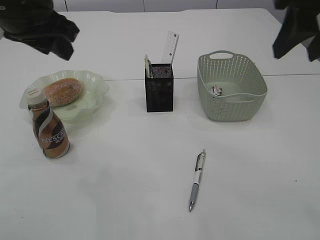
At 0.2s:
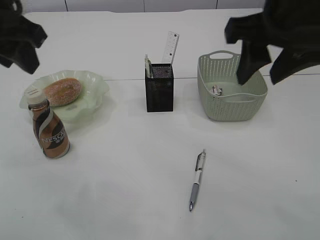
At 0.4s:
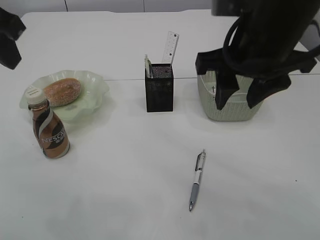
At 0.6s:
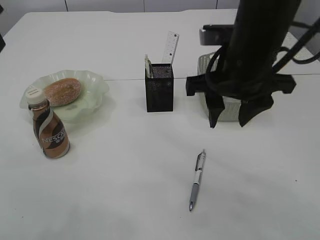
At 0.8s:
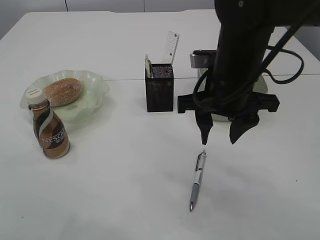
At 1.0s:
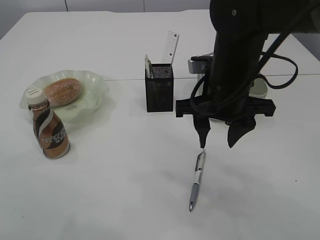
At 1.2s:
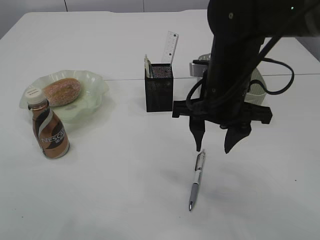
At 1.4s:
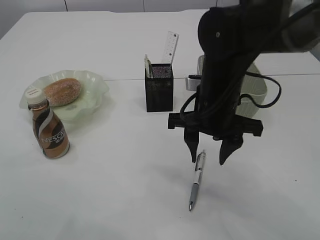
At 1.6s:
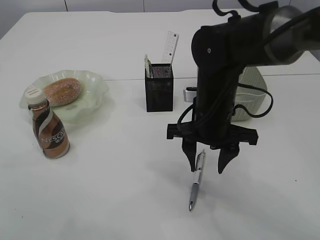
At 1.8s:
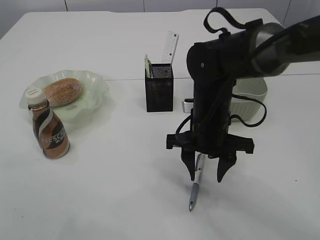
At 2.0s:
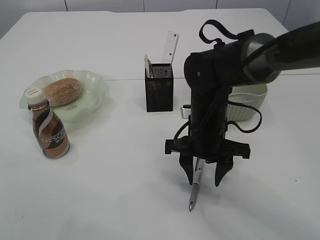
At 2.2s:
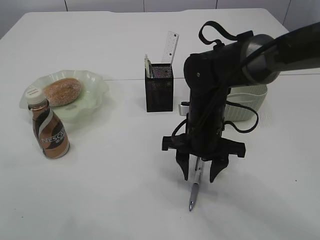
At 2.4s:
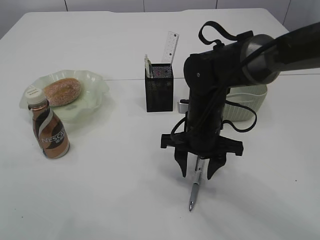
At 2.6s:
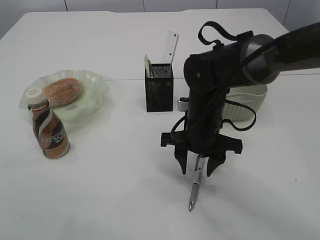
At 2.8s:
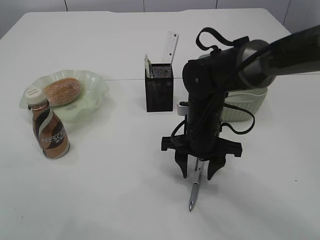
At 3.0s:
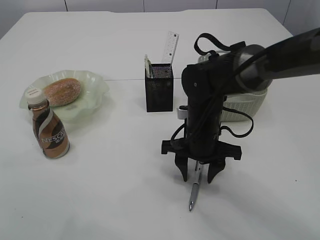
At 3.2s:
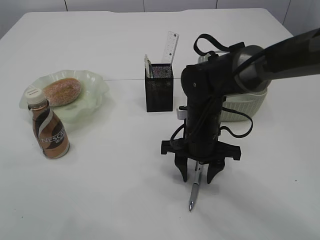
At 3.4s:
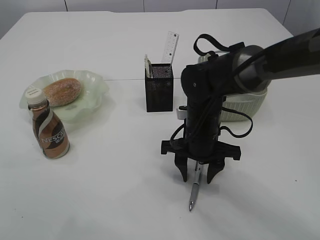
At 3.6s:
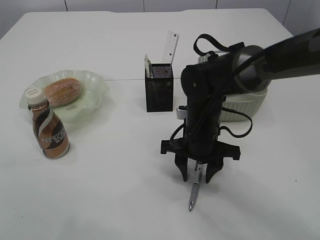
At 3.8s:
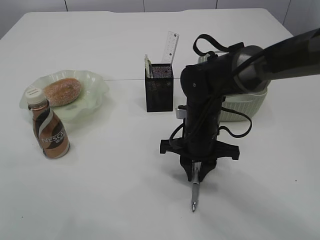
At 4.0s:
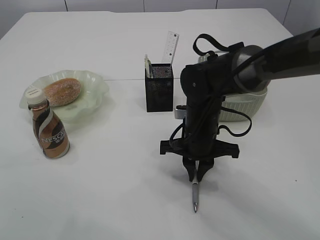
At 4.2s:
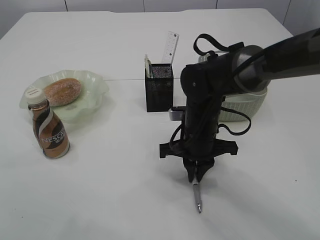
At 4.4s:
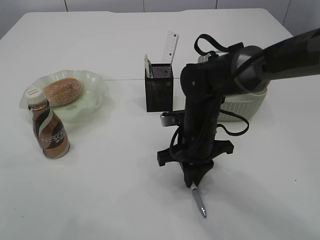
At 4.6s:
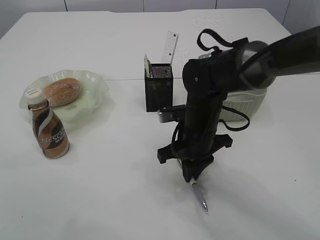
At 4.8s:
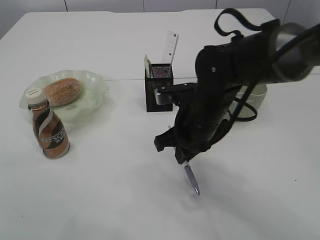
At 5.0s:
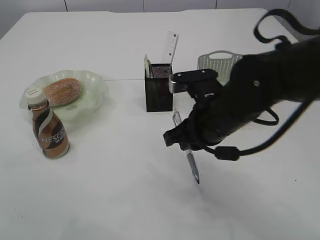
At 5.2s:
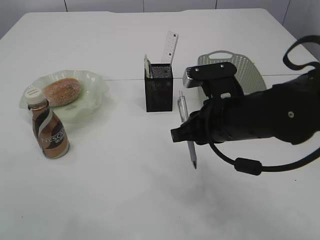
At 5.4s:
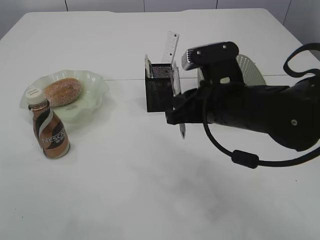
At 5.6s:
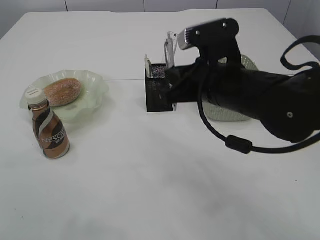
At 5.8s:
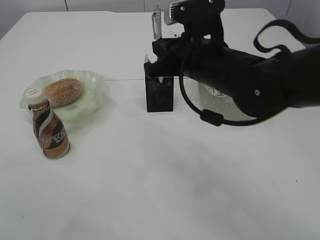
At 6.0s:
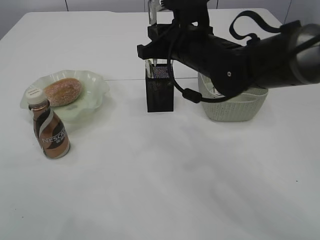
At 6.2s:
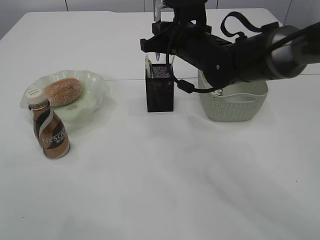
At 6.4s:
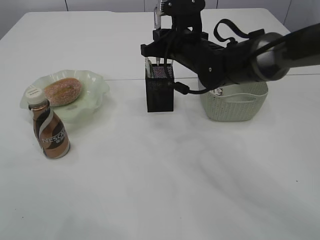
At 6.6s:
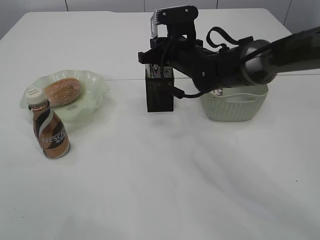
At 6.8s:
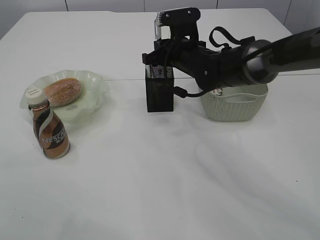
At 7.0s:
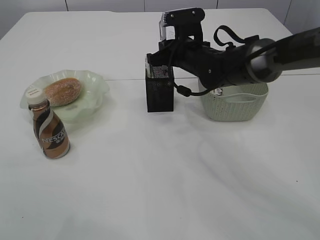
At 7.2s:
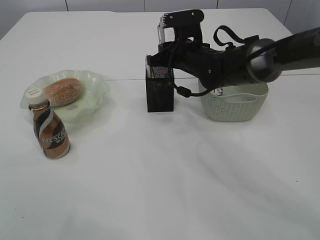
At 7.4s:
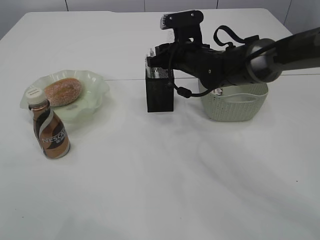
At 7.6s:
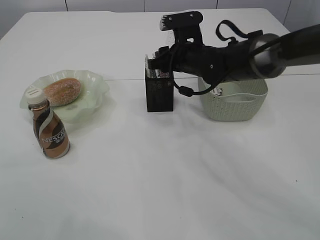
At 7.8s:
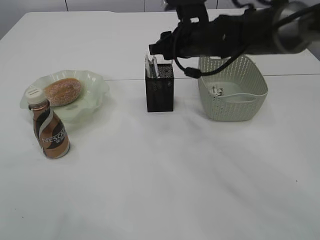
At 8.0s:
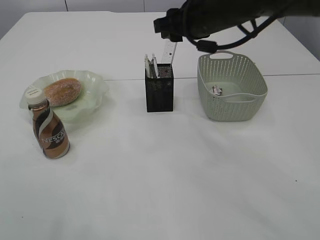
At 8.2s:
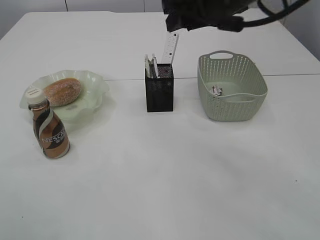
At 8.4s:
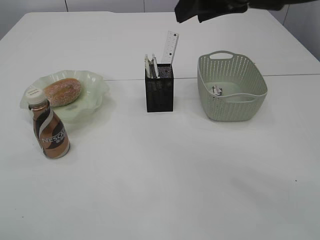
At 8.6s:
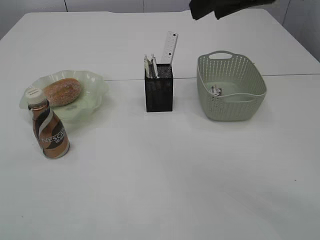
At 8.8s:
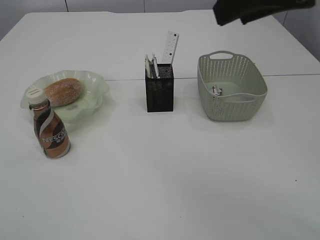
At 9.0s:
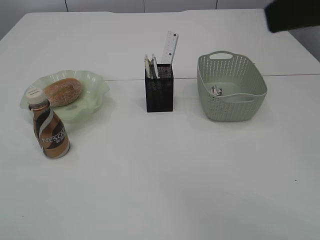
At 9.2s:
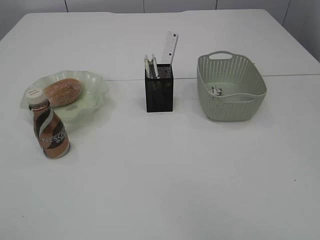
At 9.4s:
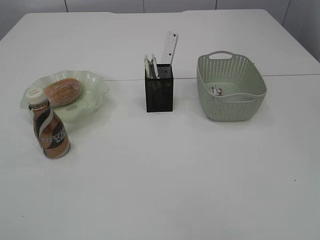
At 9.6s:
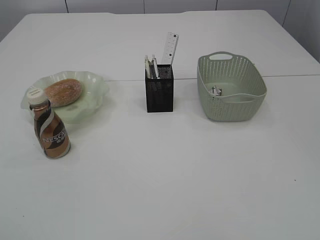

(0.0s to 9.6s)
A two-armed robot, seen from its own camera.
Step, 0.0s - 4.6s: Pick up the pen with right arm.
Step, 4.8s - 7.8s: Place the pen into the pen holder.
0.0s - 1.6s: The right gripper goes approximately 25 cm downward and to the left. Meanwhile the left gripper travels backward, upward and to the left by some 15 cm.
1.6s - 3.2s: The right gripper is displaced downward by roughly 5 cm.
3.2s - 4.8s: The right gripper closes.
4.8s - 6.4s: The right gripper shifts some 15 cm forward and upward.
6.4s - 8.0s: The right gripper travels upward by about 5 cm, and opens its fingers.
8.0s - 9.6s: The left gripper moves backward, about 25 cm, while the right gripper heads backward, covering about 40 cm.

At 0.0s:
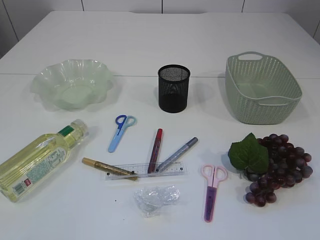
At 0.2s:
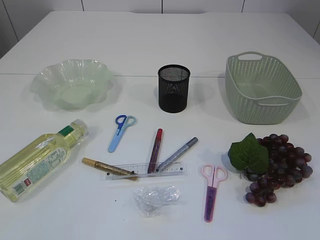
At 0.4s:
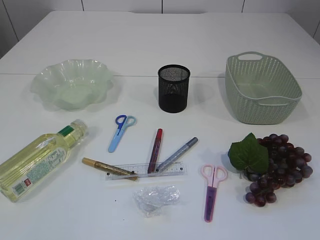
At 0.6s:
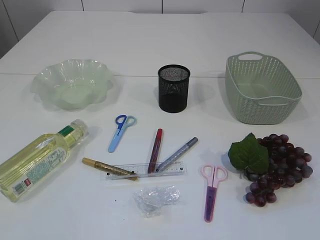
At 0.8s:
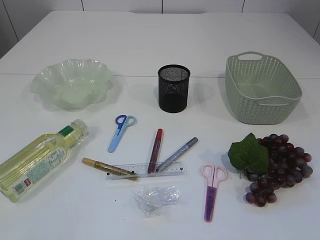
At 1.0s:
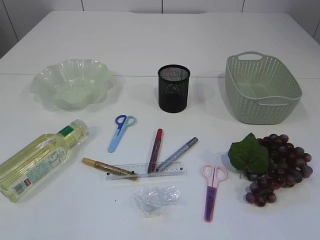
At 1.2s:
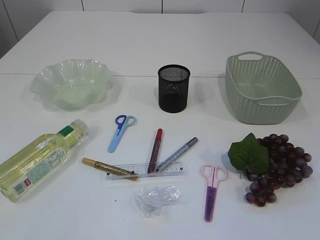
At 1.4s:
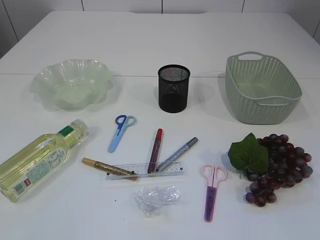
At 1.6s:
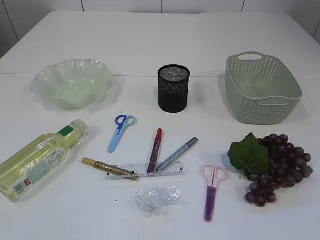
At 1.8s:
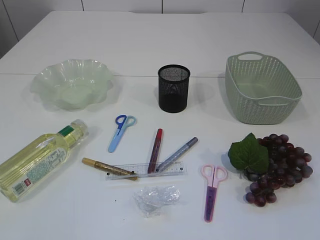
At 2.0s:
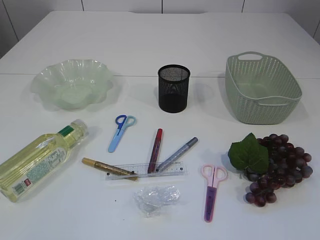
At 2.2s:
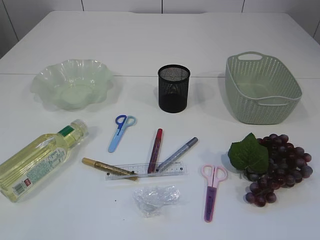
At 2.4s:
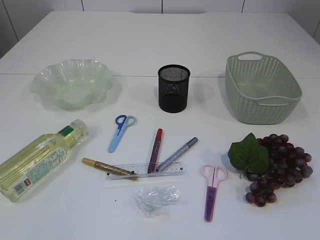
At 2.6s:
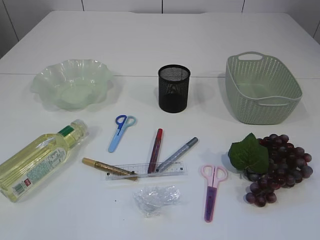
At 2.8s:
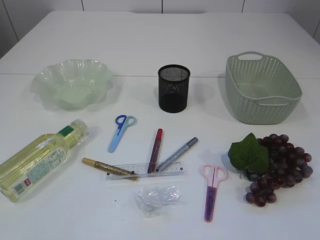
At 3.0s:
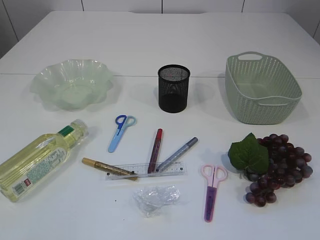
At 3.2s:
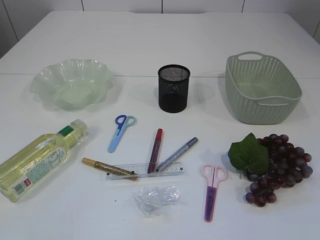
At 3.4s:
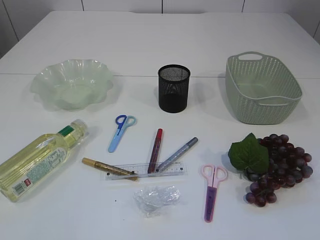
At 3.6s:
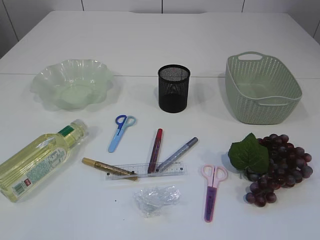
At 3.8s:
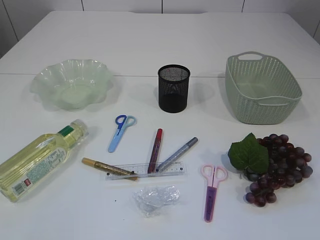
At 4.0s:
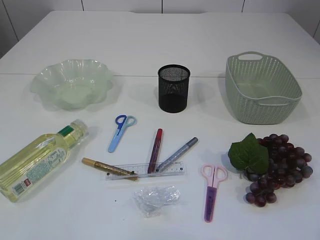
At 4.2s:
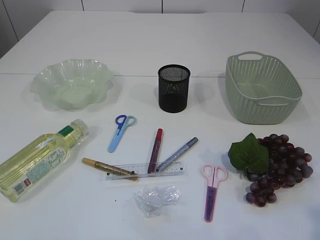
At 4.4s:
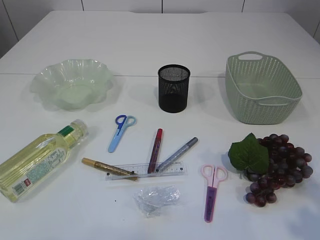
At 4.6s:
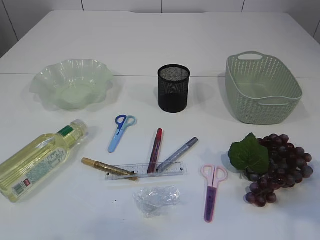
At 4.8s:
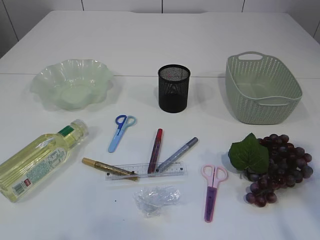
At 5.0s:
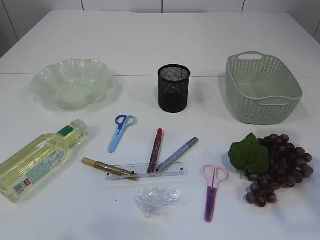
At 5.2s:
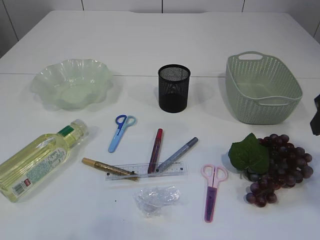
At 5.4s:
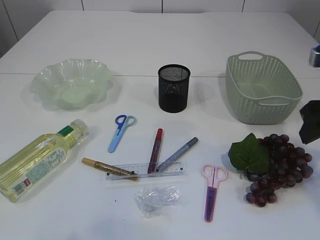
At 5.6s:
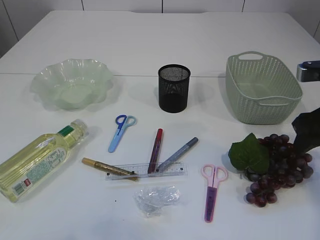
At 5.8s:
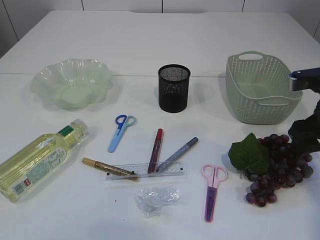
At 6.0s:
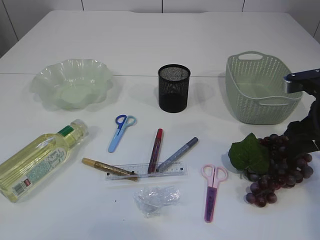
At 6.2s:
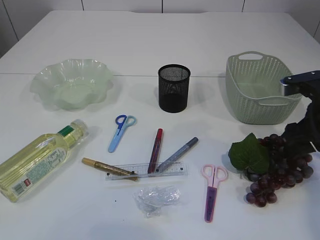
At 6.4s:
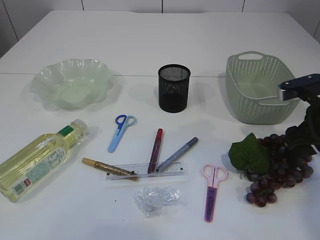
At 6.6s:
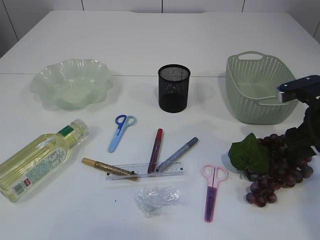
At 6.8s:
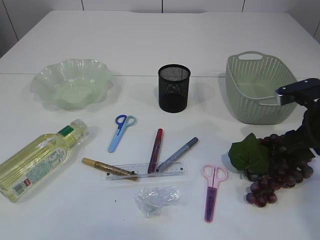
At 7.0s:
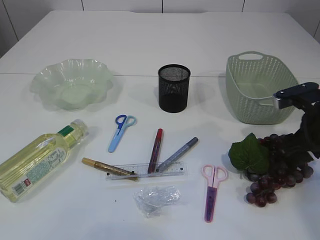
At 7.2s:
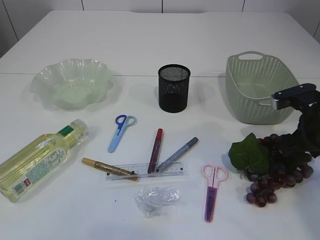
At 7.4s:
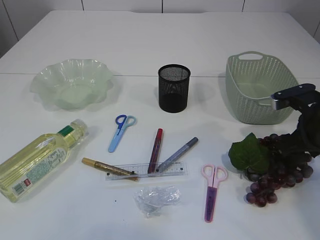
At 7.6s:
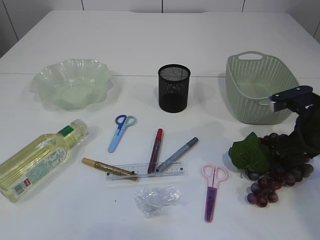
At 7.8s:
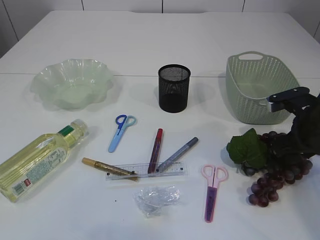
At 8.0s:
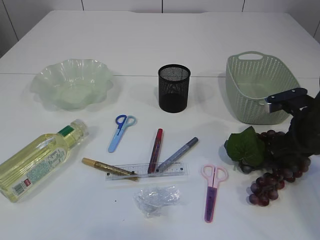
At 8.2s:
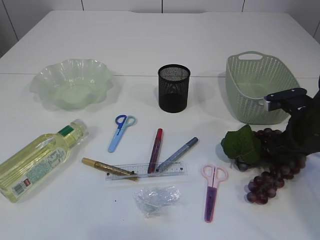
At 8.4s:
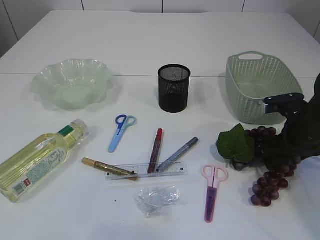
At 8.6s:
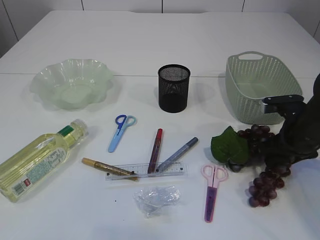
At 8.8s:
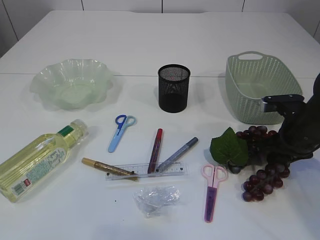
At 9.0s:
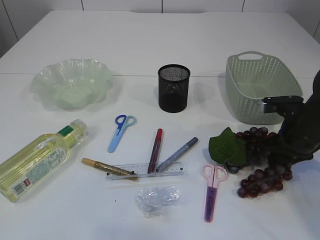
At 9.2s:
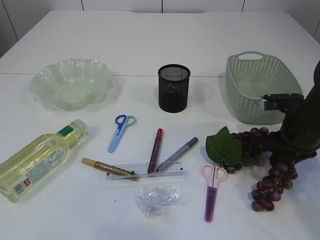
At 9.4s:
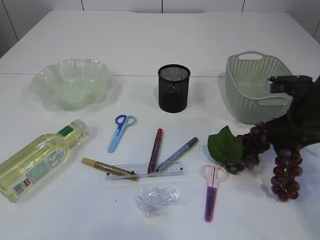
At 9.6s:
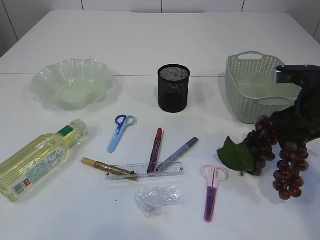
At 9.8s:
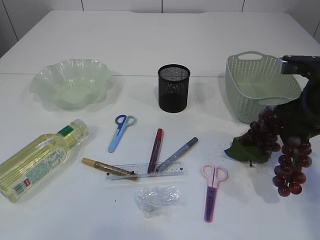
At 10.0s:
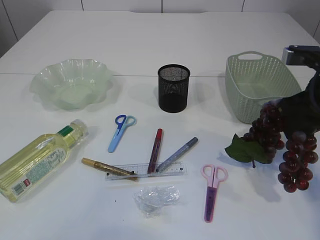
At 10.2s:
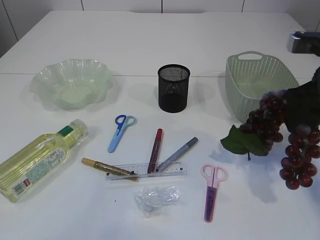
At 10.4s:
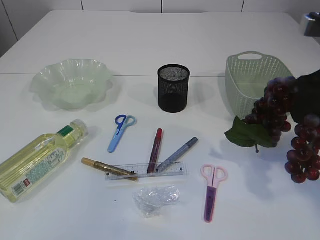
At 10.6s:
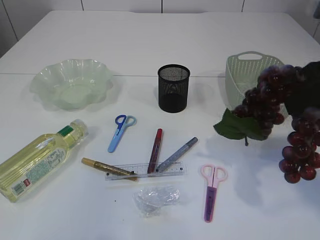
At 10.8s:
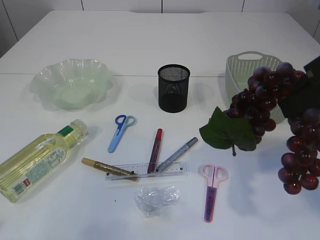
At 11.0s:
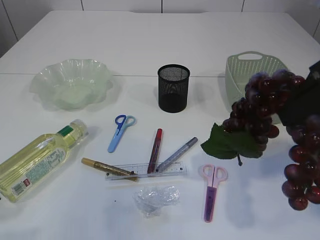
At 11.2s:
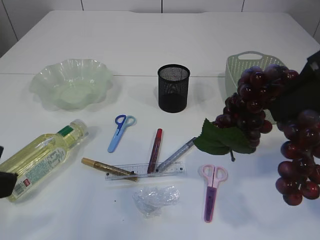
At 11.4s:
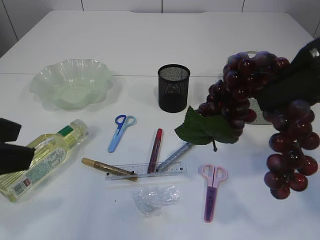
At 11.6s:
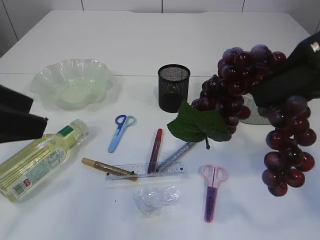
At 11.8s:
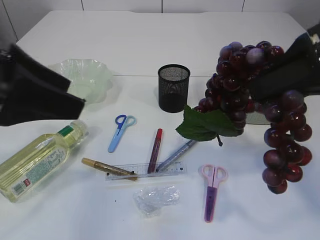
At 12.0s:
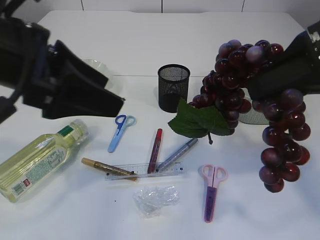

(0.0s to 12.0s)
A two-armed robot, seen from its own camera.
Step, 0.0s - 10.2s: Pick up the grapes.
1.6s - 3.0s: Both grippers stay put.
3.0s - 4.4s: The right gripper is displaced forward by roughly 10 cm.
4.4s - 6.0s: The right gripper goes about 25 cm forward and downward.
6.0s - 7.6s: The right gripper changes place by about 5 cm.
7.6s - 9.0s: The right gripper closes up.
9.0s - 10.4s: The right gripper travels upward by about 15 cm.
10.4s - 12.0s: The left gripper moves forward and to the right, about 25 cm, while the right gripper heads upward, covering approximately 5 cm.

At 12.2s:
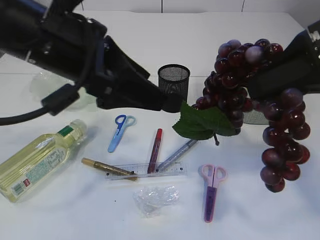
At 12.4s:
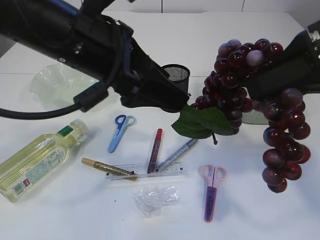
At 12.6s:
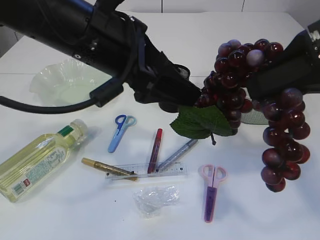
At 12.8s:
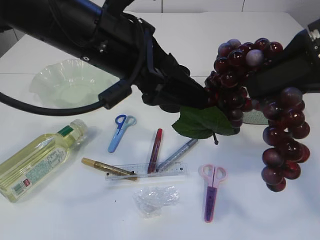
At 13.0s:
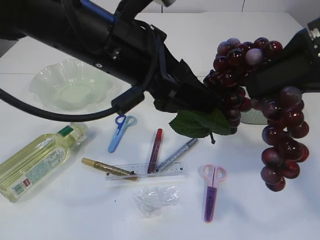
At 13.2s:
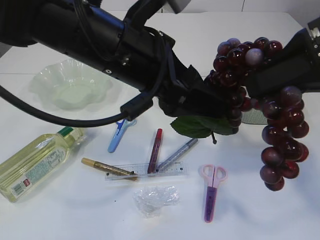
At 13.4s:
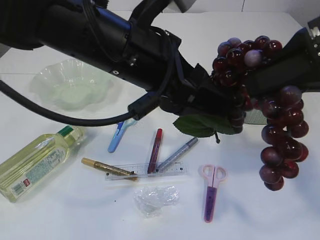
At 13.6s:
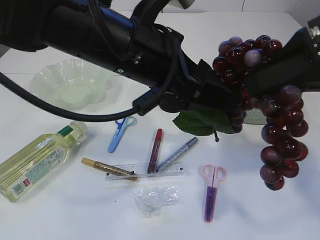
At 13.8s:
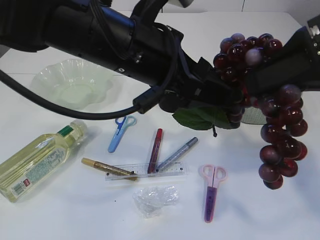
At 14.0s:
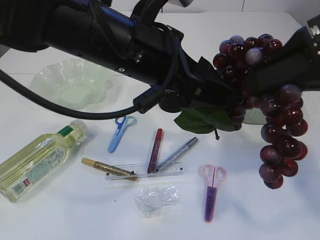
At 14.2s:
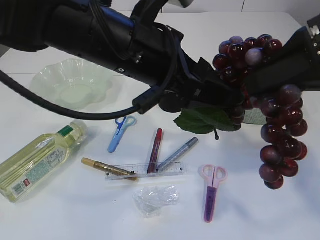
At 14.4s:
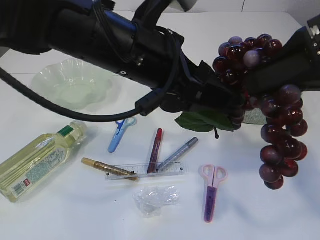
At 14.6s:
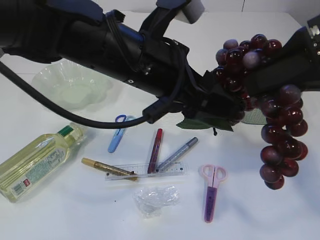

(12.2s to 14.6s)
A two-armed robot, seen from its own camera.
12.2s - 13.4s: The left gripper is displaced to the right by some 10 cm.
13.4s - 14.6s: The grippers stay close to where they were, moving slightly.
